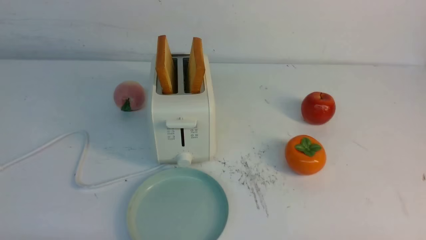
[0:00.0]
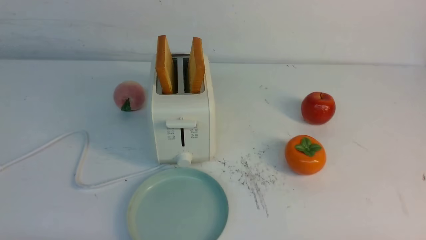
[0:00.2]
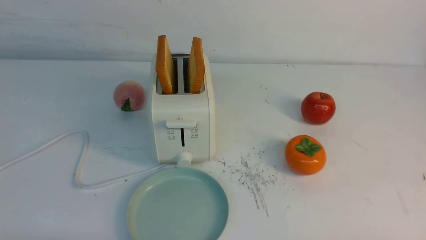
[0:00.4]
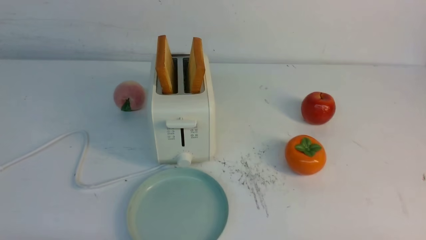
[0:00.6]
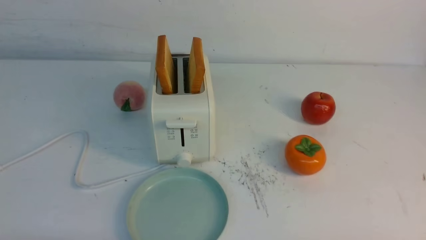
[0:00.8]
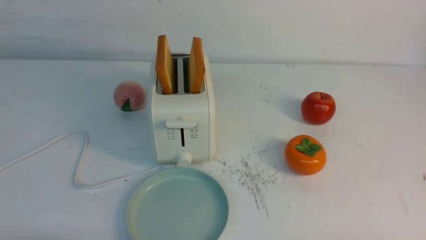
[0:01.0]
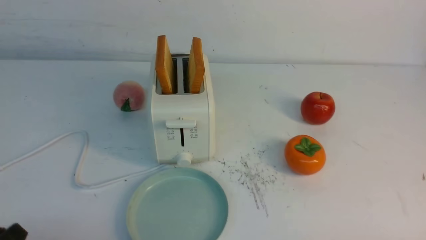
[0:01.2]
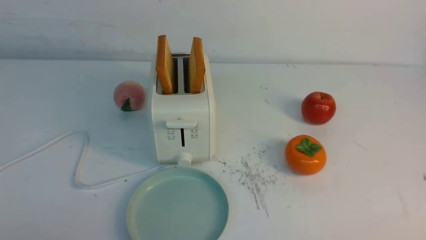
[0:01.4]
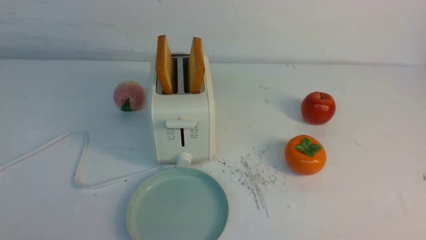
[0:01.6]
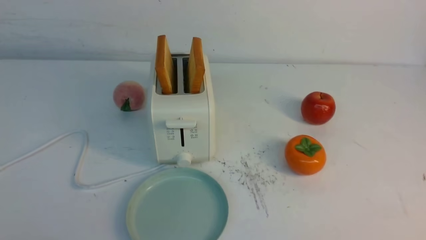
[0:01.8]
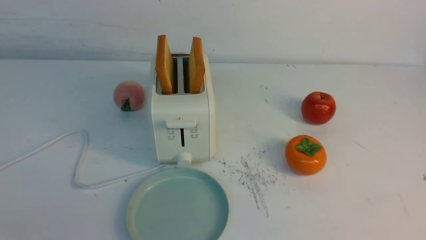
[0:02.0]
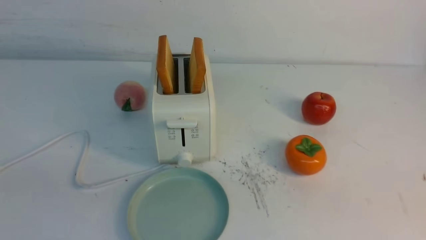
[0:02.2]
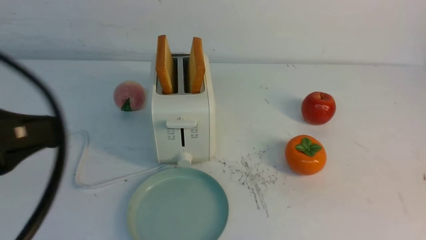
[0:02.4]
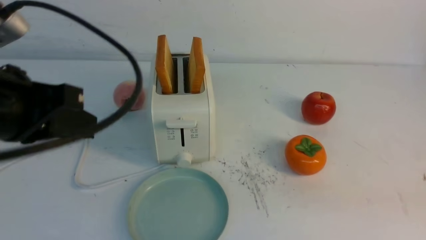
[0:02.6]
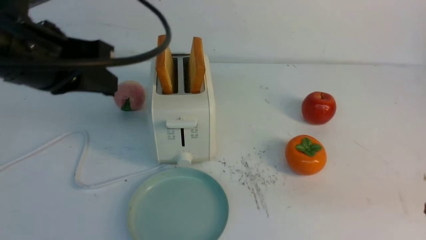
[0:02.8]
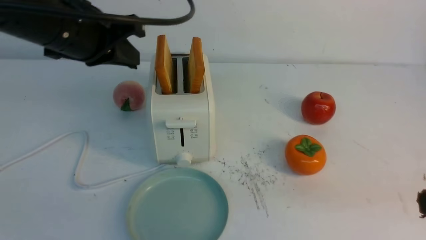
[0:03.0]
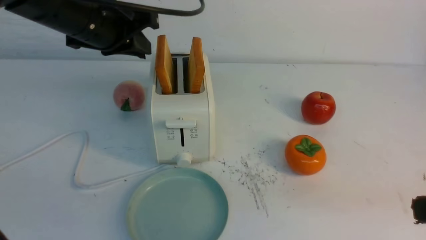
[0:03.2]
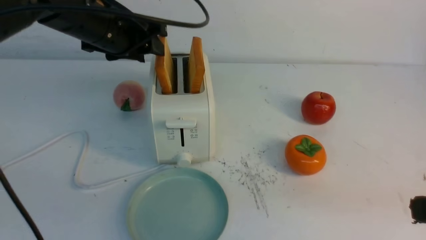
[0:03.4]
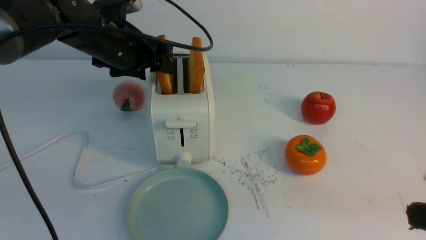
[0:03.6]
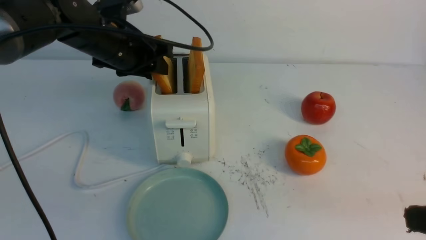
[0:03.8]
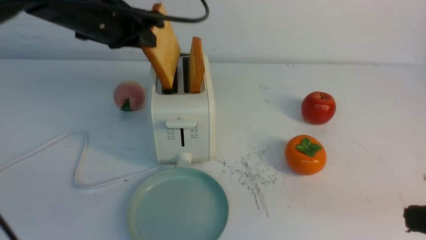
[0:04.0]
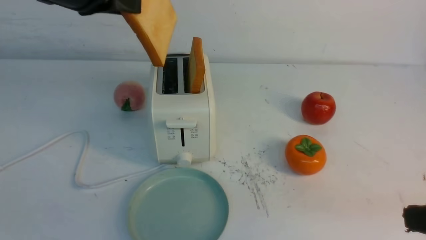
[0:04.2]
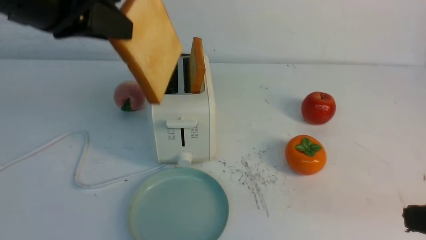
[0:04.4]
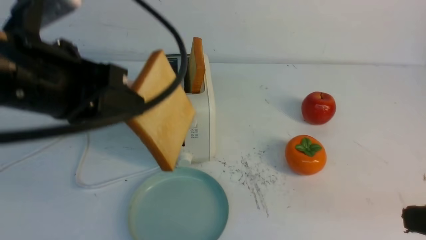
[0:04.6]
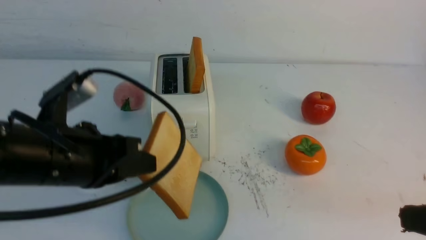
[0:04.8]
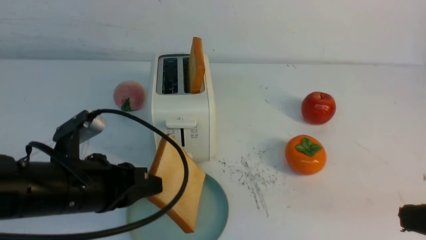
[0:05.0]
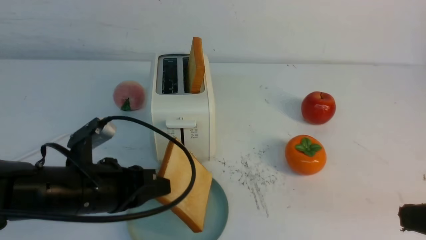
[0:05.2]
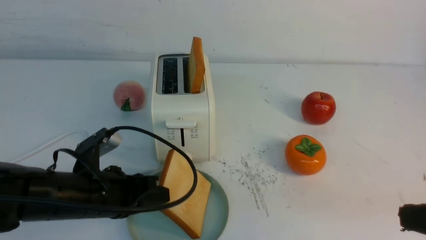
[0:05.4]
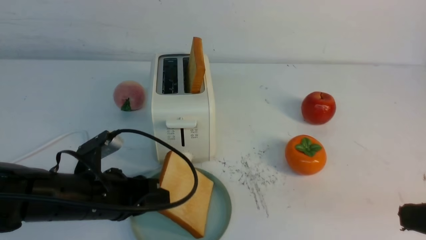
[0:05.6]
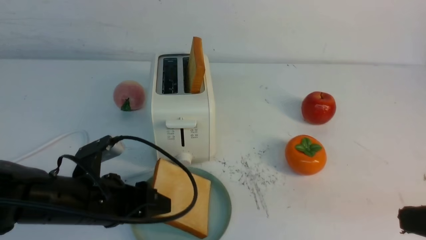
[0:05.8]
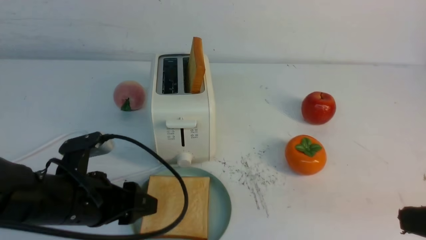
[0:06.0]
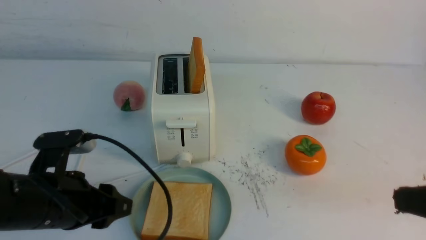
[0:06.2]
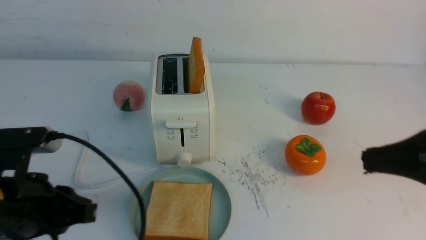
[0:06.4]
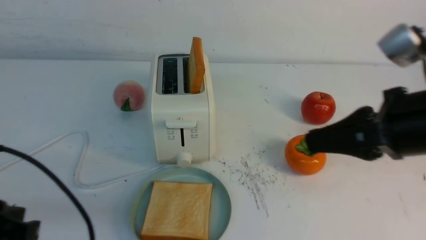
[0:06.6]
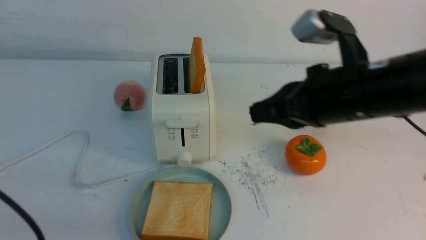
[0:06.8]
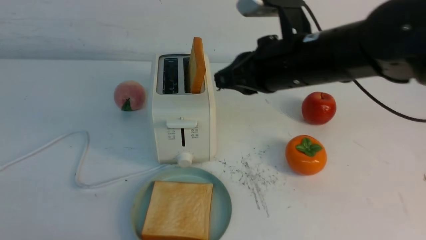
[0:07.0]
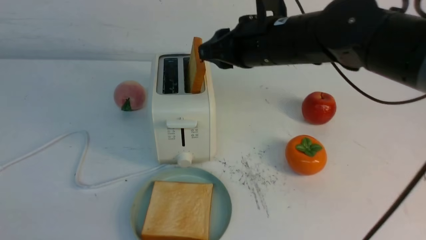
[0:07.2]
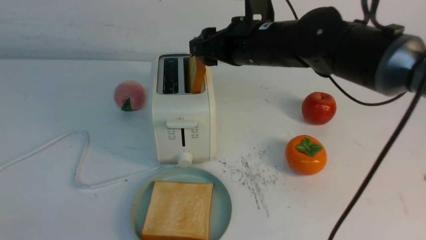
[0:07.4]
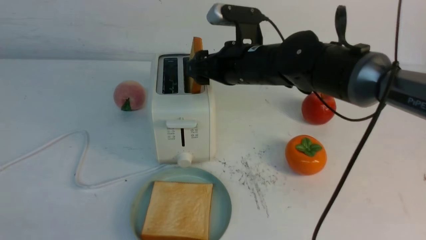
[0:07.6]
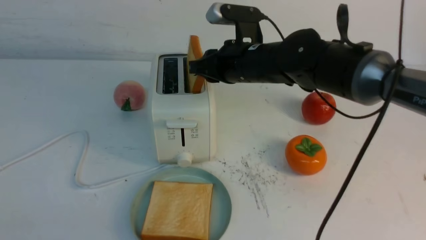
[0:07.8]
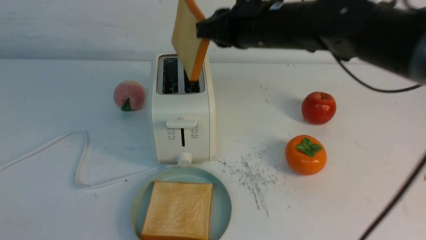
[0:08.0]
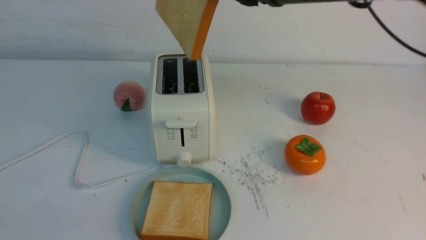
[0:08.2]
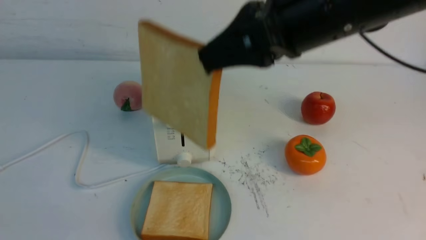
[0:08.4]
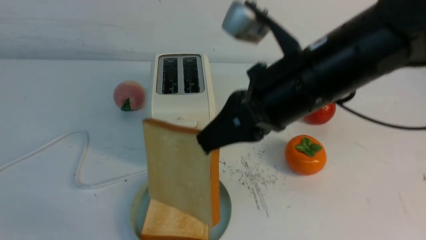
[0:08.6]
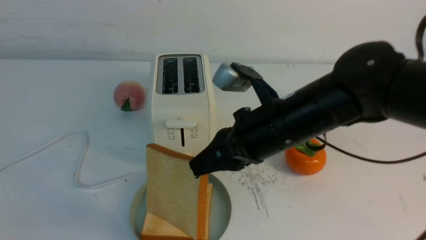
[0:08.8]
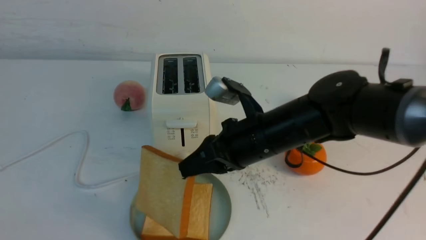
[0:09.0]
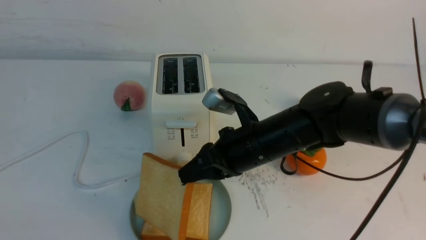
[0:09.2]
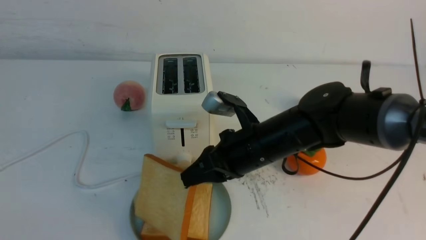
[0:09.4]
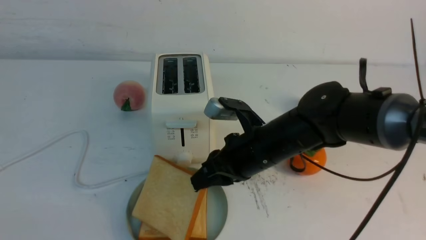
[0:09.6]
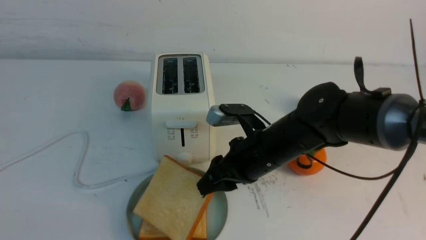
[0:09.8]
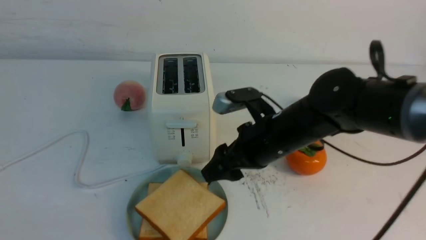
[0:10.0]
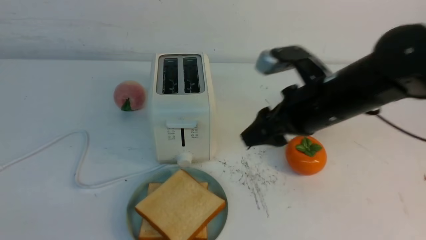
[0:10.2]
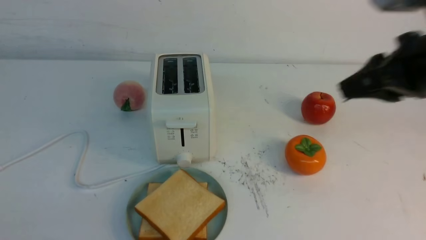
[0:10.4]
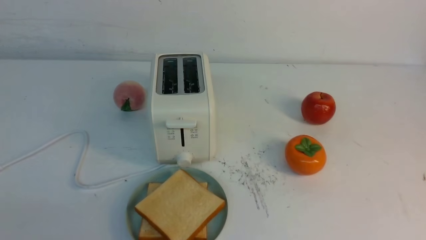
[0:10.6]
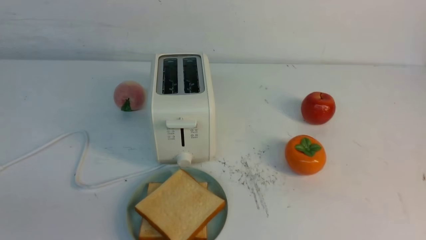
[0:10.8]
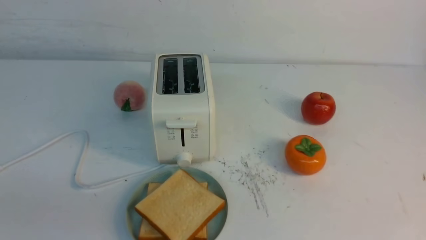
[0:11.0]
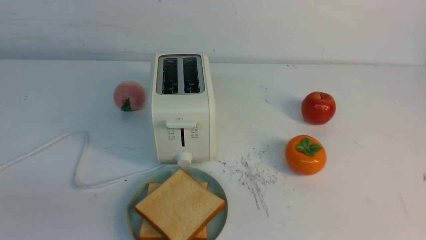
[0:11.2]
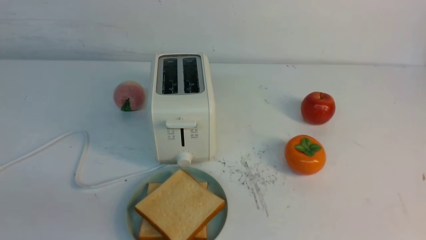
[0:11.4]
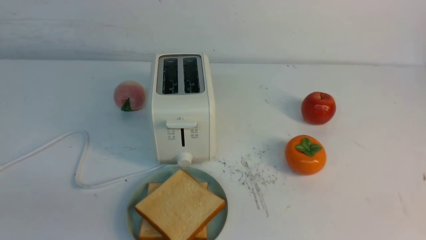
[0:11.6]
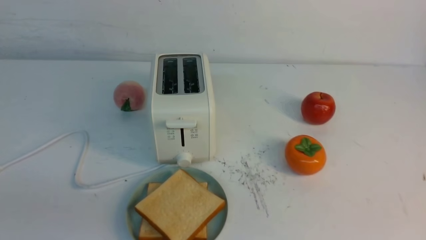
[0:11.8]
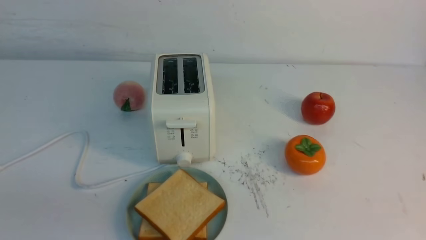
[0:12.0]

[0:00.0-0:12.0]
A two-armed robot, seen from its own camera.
Task of the whole recording: take toasted bread from bread machine on white table place on plate.
Step, 0:00.0 to 0:04.0: use the left arm to take out a slice of bread.
Step, 0:04.2 to 0:06.2: use the left arm to put a slice of bread into the empty plate.
Step, 0:06.4 to 0:07.8: use the right arm to take out a slice of bread.
Step, 0:08.0 to 0:10.0: use the right arm to put a slice of bread into the plate.
0:01.6 to 0:03.0: The left gripper shifts some 30 cm forward and upward, and closes up. Meanwhile the right gripper travels upward by roughly 15 cm, and closes up.
0:03.0 to 0:04.4: The left gripper moves roughly 10 cm forward and comes back, and opens, then closes once more.
0:04.4 to 0:06.0: The left gripper shifts about 25 cm downward, and opens.
0:06.0 to 0:07.6: The left gripper travels backward, upward and to the left by about 25 cm, and closes up. Meanwhile the right gripper travels forward and to the left by some 35 cm, and opens up.
0:07.6 to 0:09.0: The right gripper moves backward, about 10 cm, travels upward and back again, about 10 cm each way, and closes up.
0:09.0 to 0:10.4: The right gripper moves to the right and upward, approximately 15 cm, and opens its fingers.
0:10.4 to 0:12.0: The right gripper is displaced backward by approximately 25 cm, and closes.

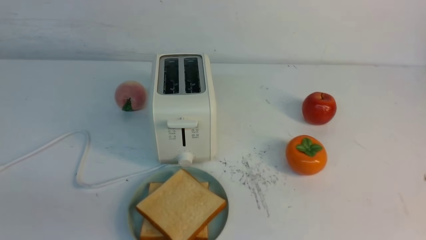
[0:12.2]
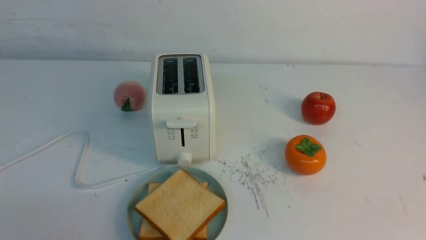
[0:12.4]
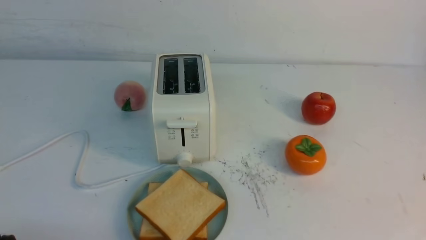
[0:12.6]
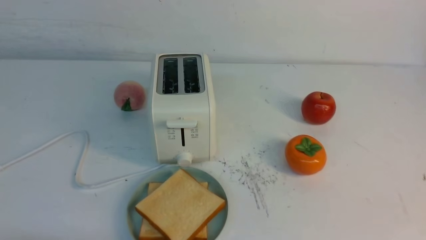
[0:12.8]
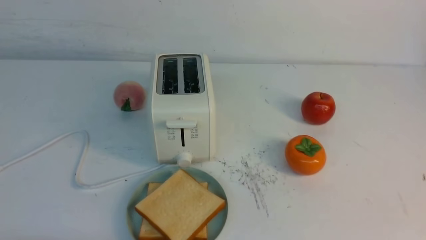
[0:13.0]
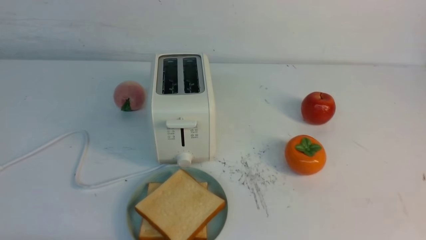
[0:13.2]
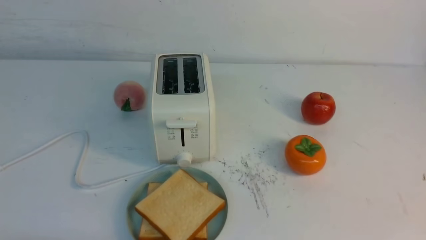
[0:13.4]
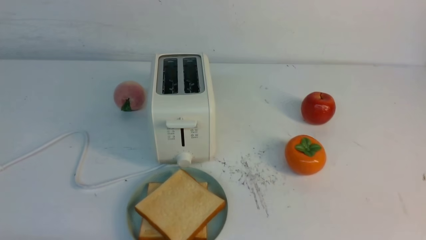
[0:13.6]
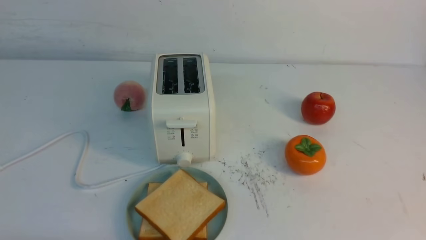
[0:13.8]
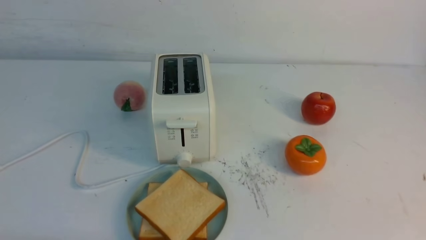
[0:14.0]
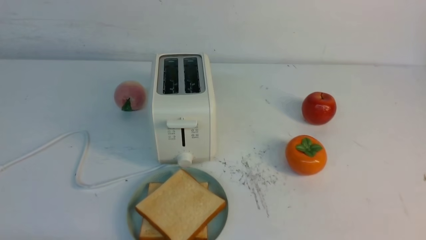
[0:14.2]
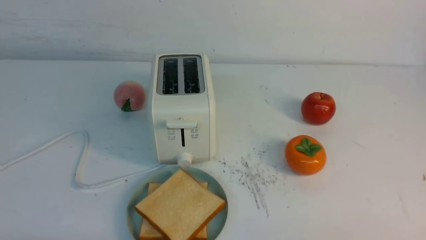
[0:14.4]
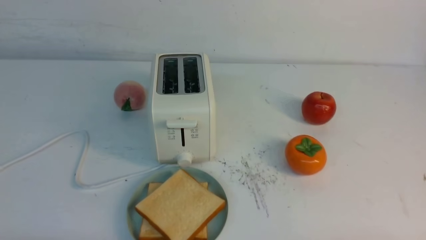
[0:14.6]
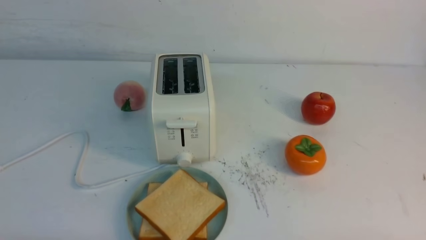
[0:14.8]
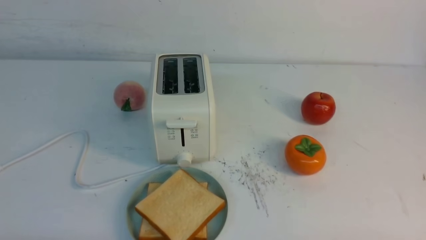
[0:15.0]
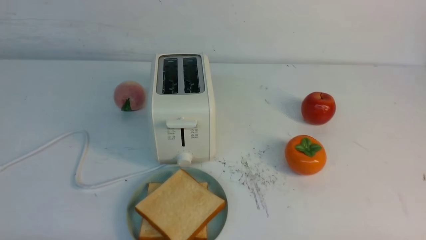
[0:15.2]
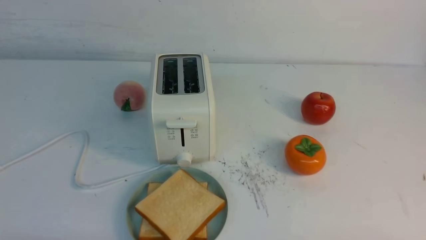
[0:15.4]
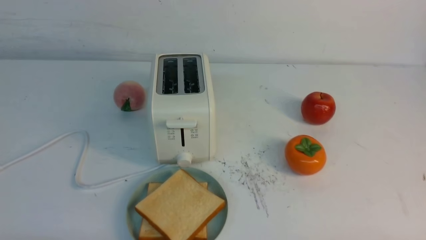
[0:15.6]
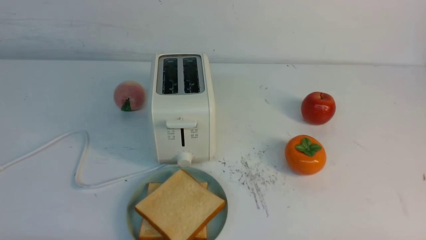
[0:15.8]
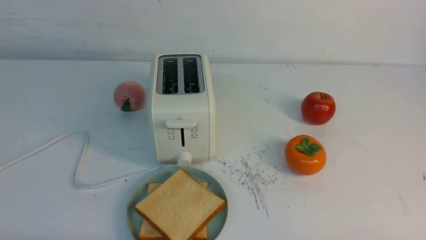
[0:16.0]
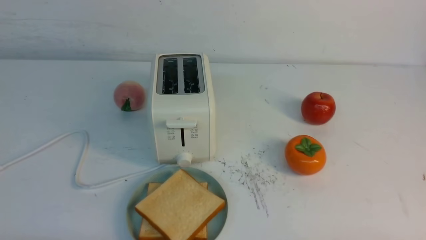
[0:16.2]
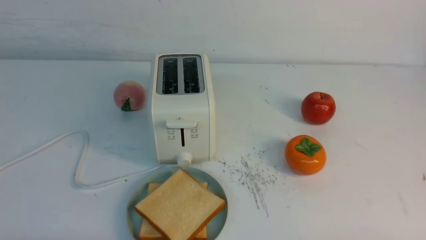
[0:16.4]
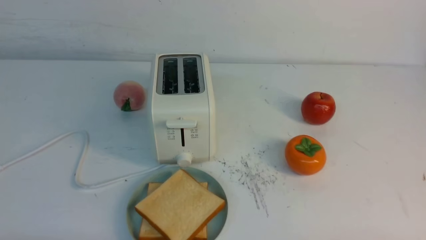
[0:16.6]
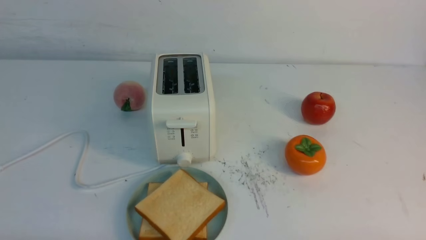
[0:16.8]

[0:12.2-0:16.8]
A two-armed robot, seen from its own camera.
Task of the whole recording: take toasted bread from bread machine on white table place on plate.
0:15.2 to 0:16.8: Both grippers stay about where they are.
